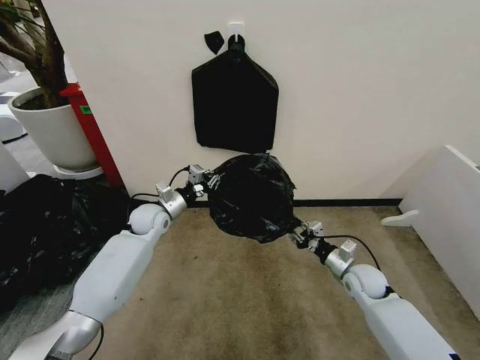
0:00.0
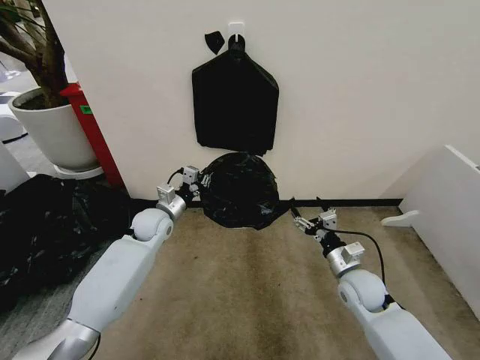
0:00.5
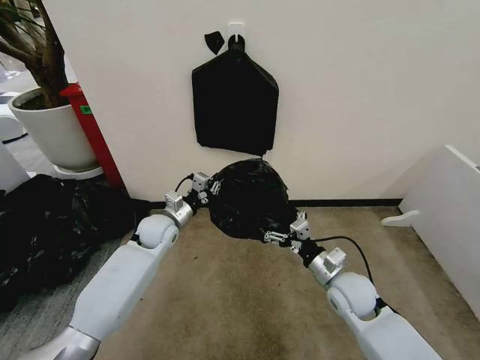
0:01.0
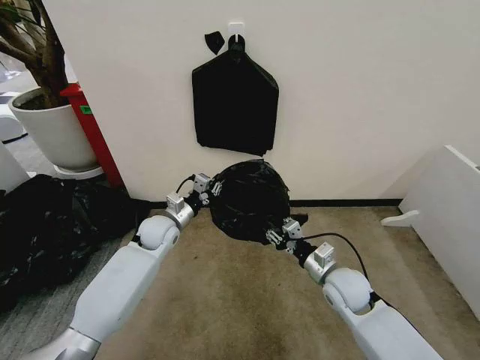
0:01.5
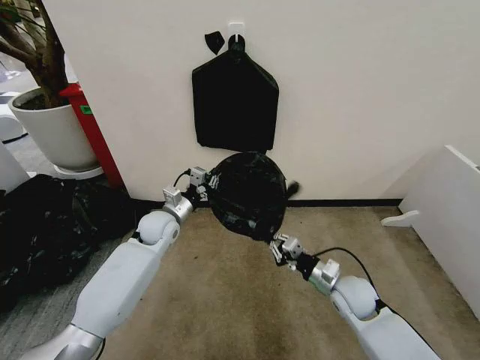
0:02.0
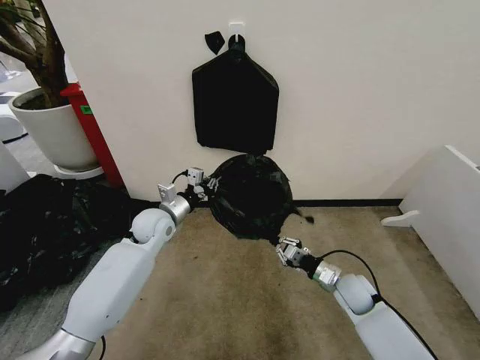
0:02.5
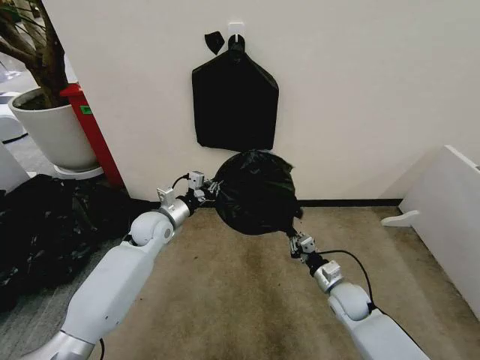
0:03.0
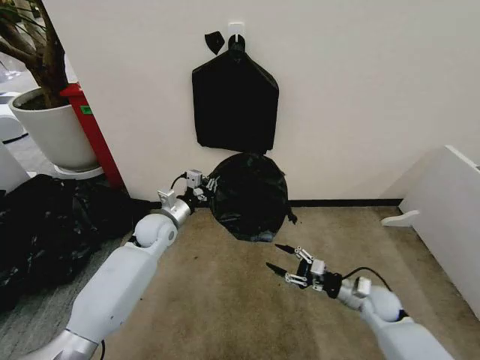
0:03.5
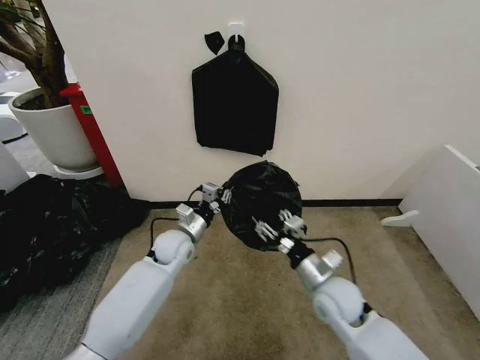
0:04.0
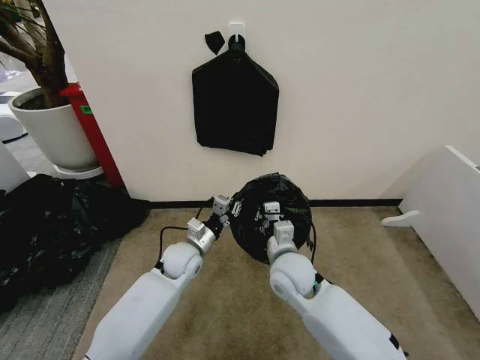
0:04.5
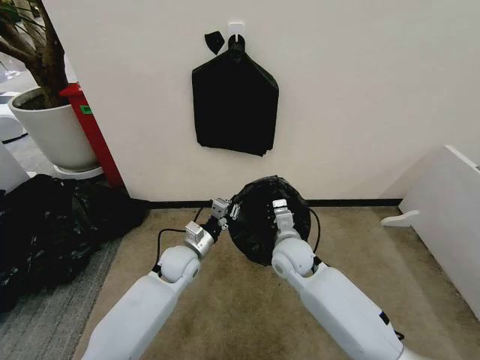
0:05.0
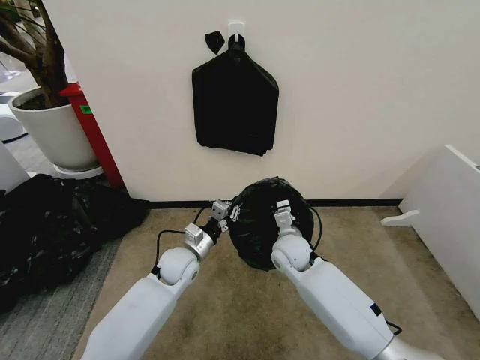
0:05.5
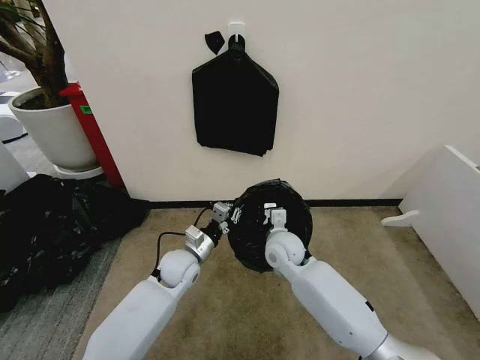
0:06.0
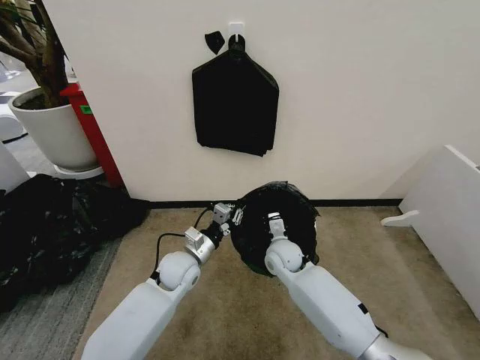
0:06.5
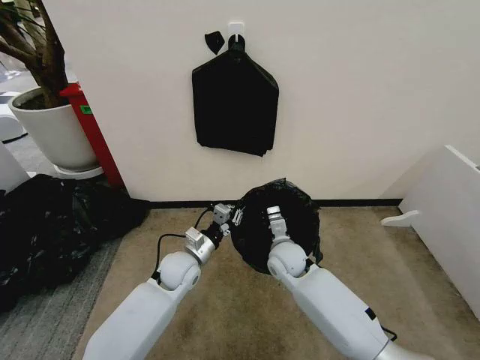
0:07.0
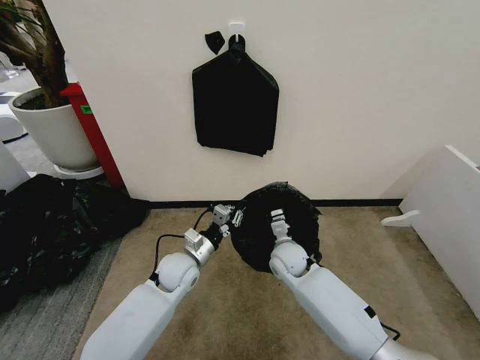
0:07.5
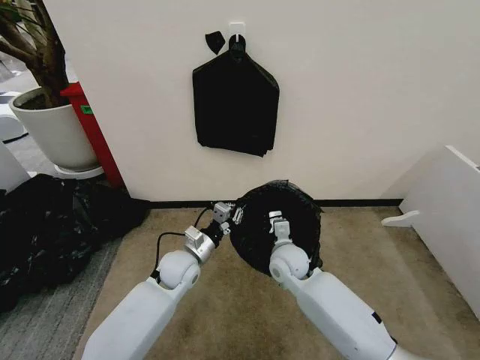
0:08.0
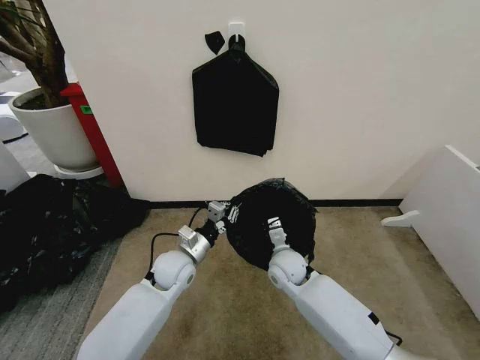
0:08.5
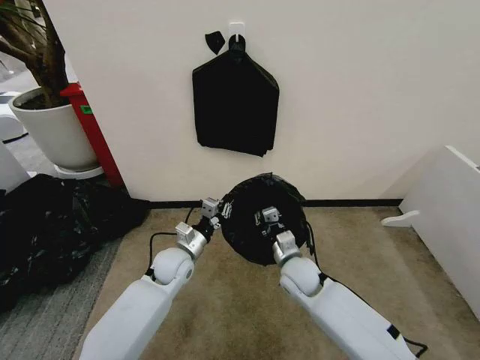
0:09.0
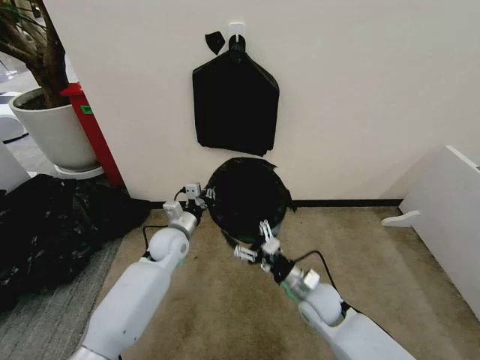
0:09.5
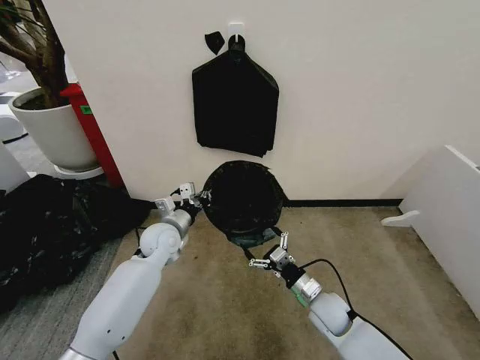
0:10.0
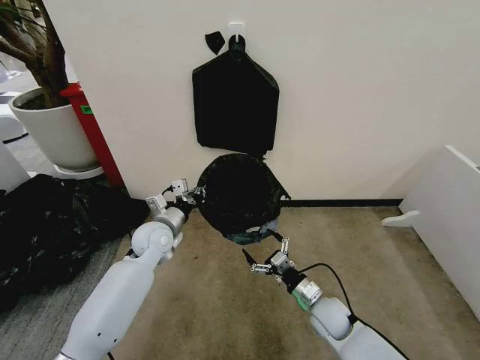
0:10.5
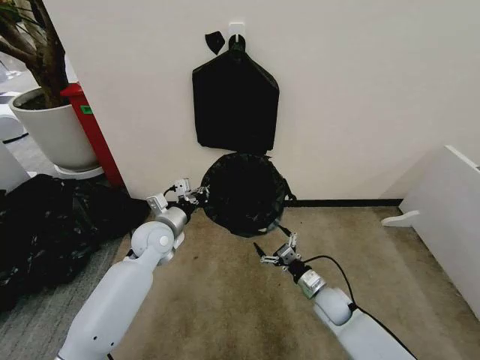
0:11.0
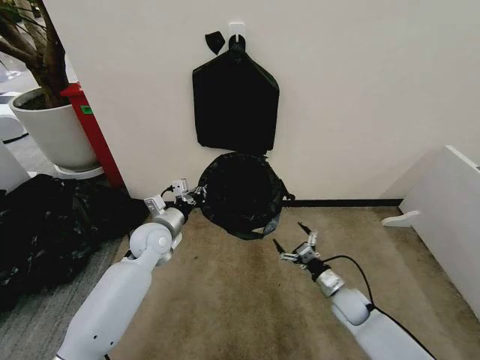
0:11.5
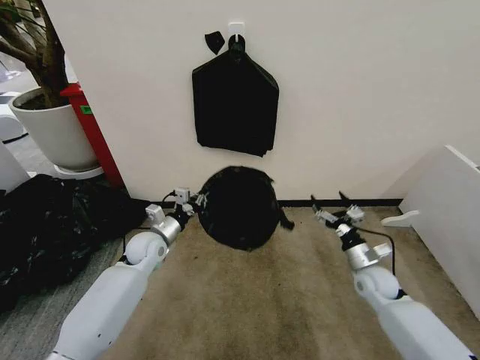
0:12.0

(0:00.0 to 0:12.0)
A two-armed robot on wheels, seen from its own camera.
Task of the whole recording: Place the garbage bag over the trash bin.
0:00.0 - 0:02.0: The right gripper goes approximately 5 cm to the left, and opens and closes again.
0:02.0 - 0:04.0: The right gripper travels to the left and upward by roughly 10 cm, and opens up. The left gripper shifts by roughly 5 cm.
0:04.0 - 0:06.0: The right gripper heads forward and to the left, covering roughly 15 cm, and closes up; the left gripper shifts by about 5 cm.
0:08.0 - 0:10.0: The right gripper travels to the right, backward and downward by some 15 cm, and opens, while the left gripper travels forward by about 5 cm.
0:10.0 - 0:12.0: The left gripper moves roughly 5 cm, while the right gripper moves to the right and forward, approximately 15 cm.

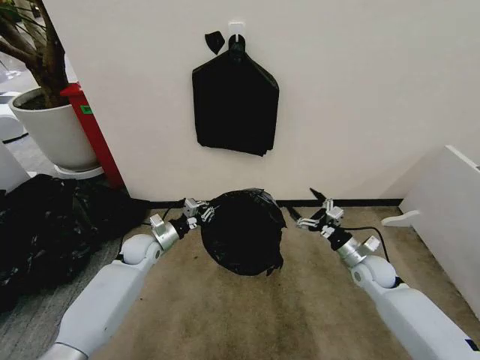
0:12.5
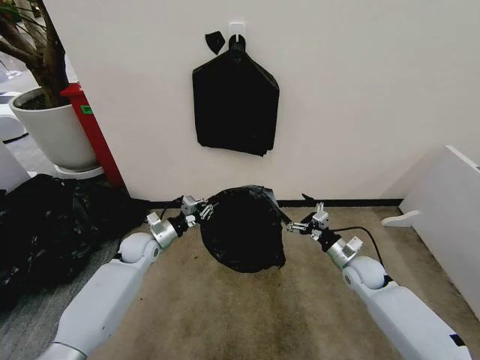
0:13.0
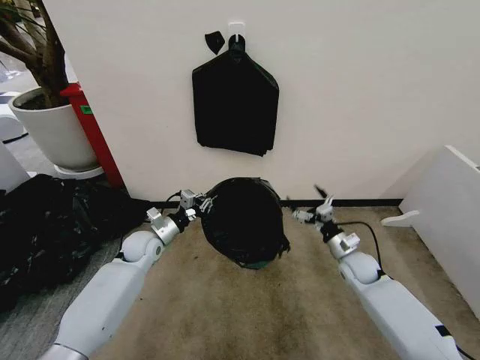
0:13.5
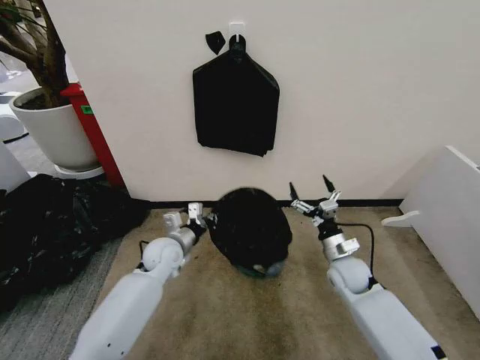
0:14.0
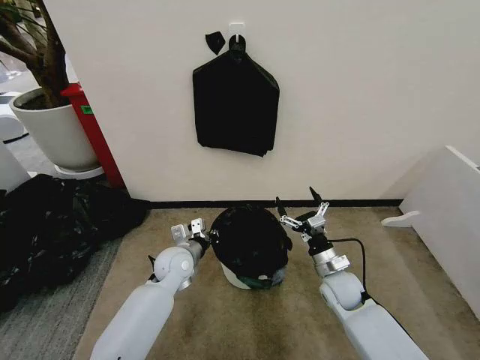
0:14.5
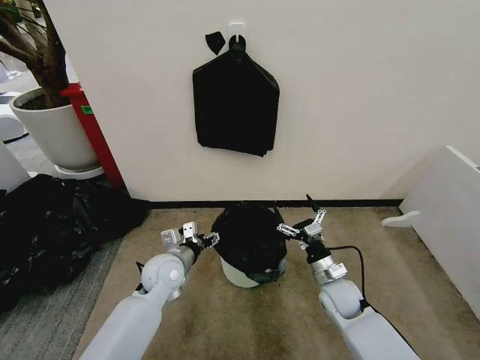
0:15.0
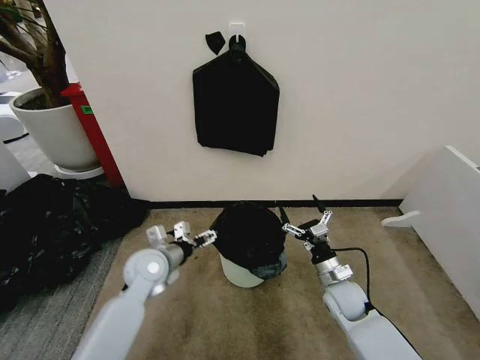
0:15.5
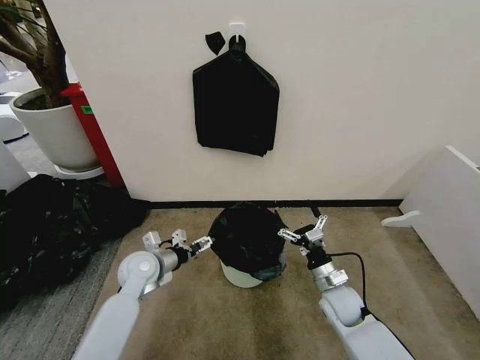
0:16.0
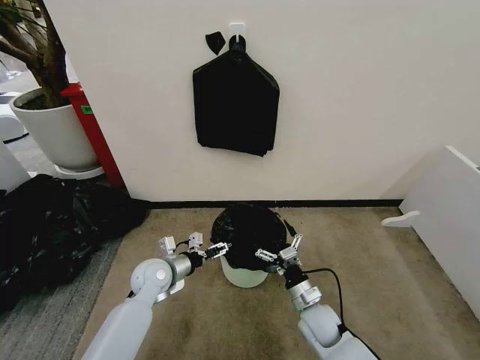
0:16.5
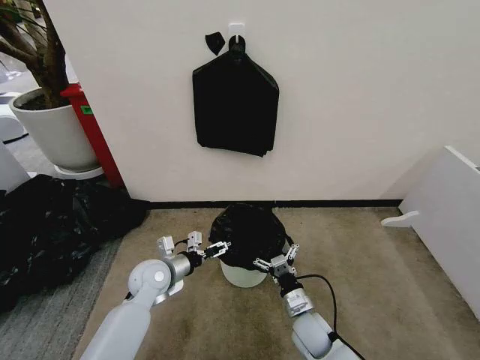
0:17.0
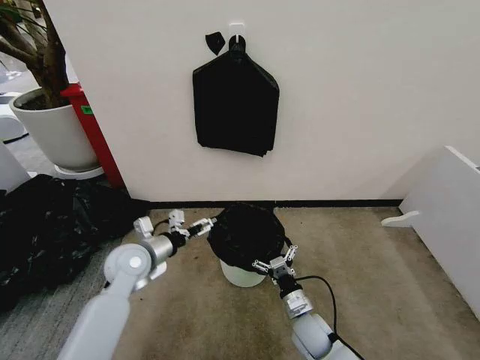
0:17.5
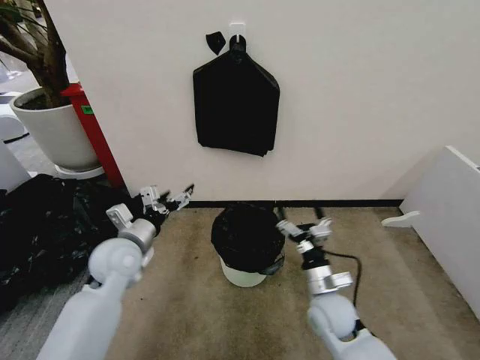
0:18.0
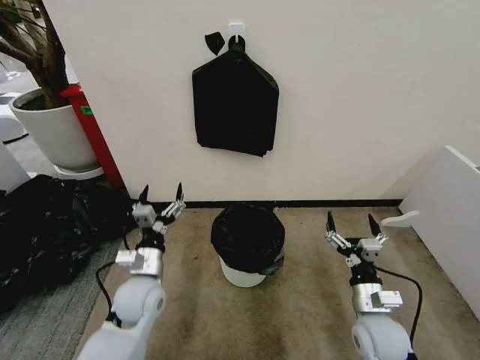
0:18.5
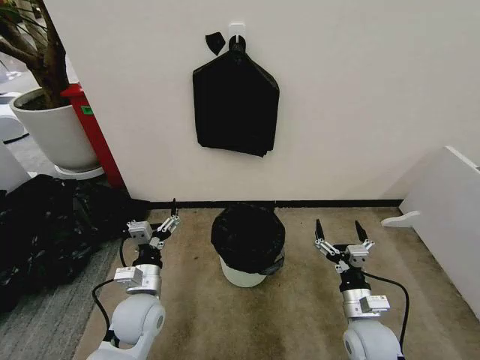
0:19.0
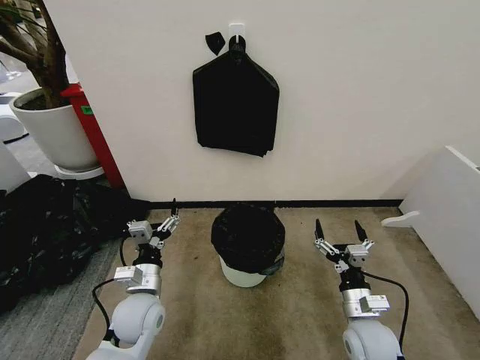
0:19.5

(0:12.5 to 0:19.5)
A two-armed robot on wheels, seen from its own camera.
Task of the whole recording: Place the garbage bag over the trash bin.
0:12.5 - 0:14.5: The right gripper shifts some 10 cm to the left. Meanwhile the left gripper moves to the right and backward, approximately 10 cm.
0:14.5 - 0:16.0: The left gripper heads to the left, covering about 10 cm, and opens.
0:16.0 - 0:17.5: The left gripper changes place by some 5 cm. Meanwhile the right gripper is displaced to the left, downward and backward by about 10 cm.
0:17.5 - 0:19.5: The right gripper travels upward and to the right by roughly 15 cm, while the left gripper is displaced backward and downward by roughly 10 cm.
